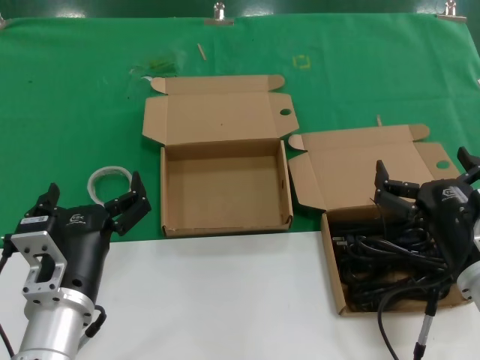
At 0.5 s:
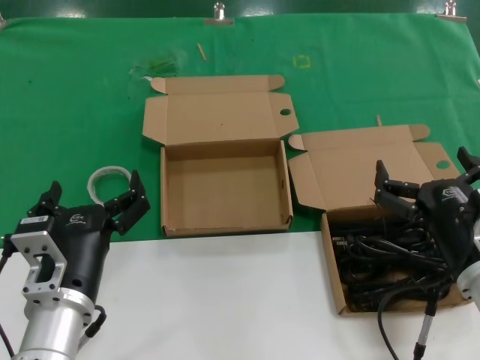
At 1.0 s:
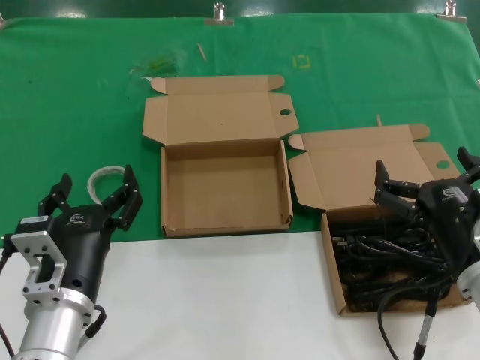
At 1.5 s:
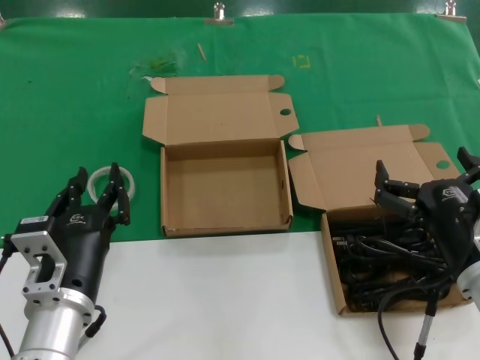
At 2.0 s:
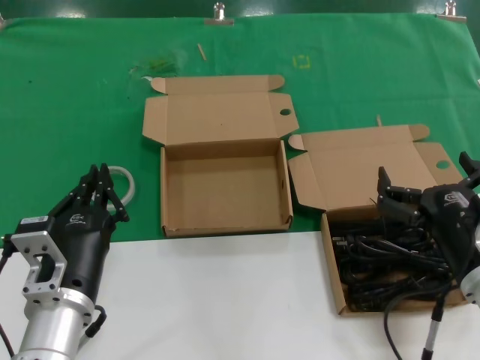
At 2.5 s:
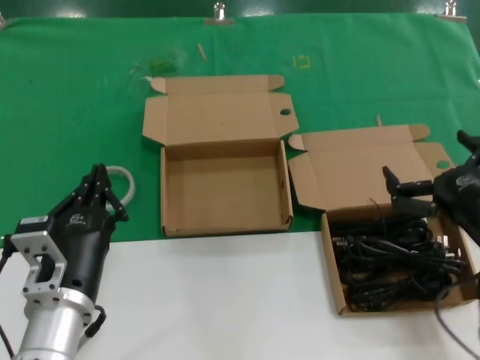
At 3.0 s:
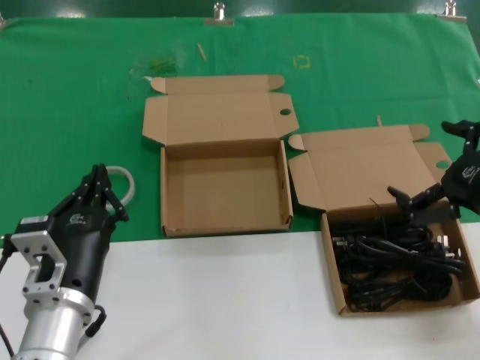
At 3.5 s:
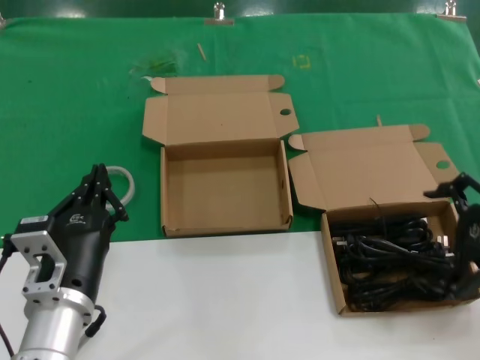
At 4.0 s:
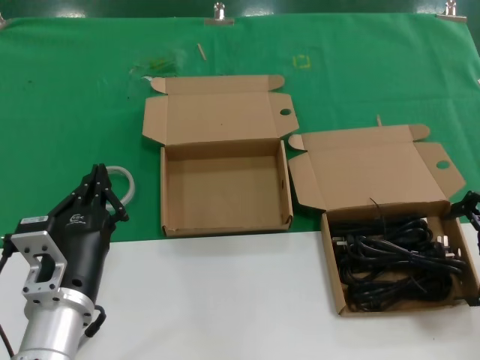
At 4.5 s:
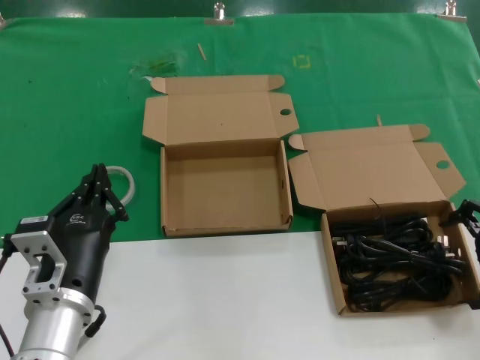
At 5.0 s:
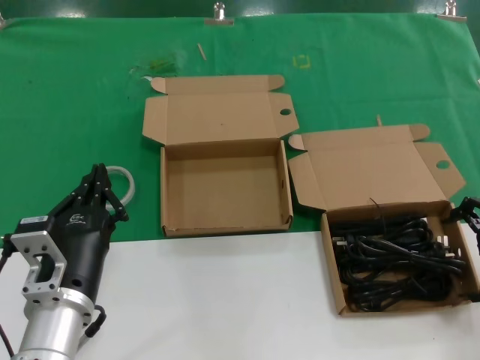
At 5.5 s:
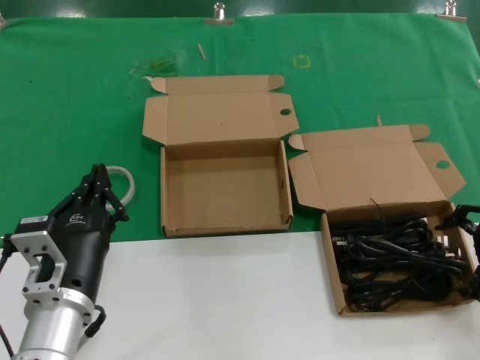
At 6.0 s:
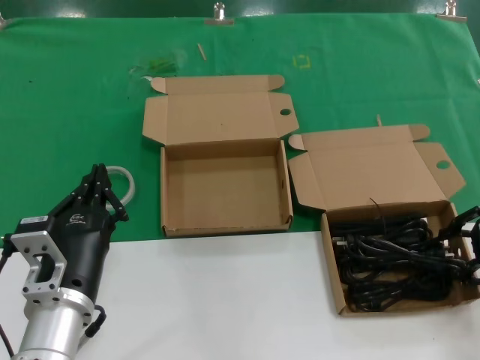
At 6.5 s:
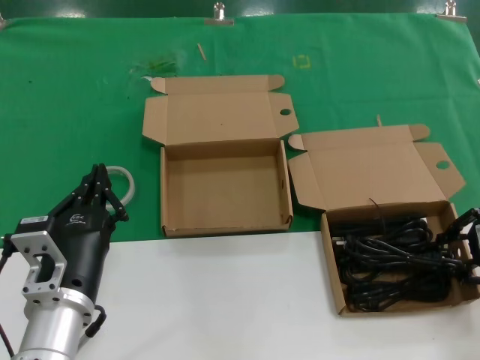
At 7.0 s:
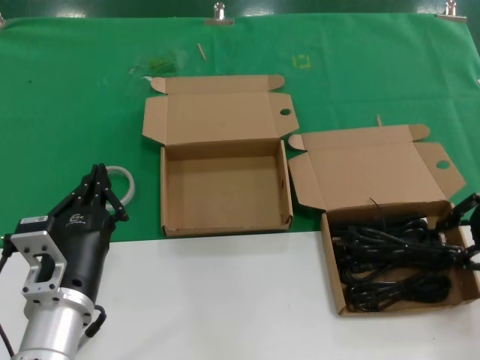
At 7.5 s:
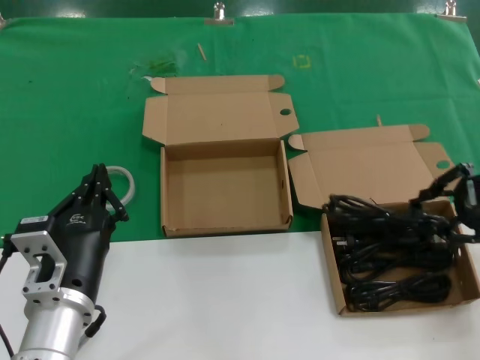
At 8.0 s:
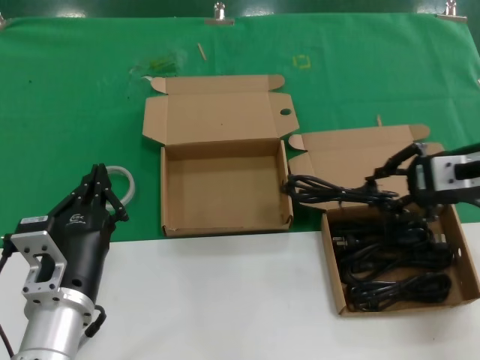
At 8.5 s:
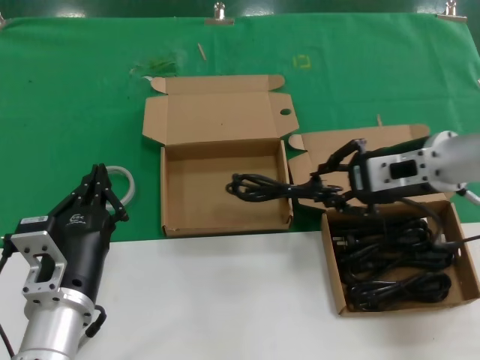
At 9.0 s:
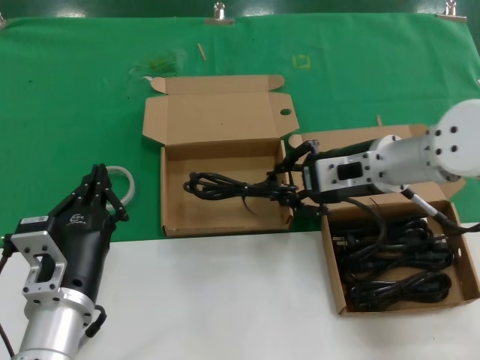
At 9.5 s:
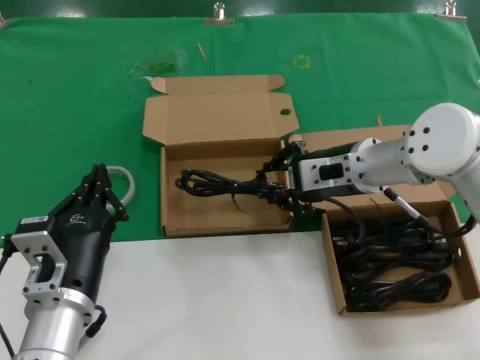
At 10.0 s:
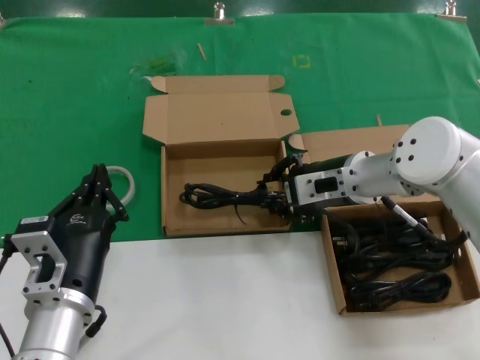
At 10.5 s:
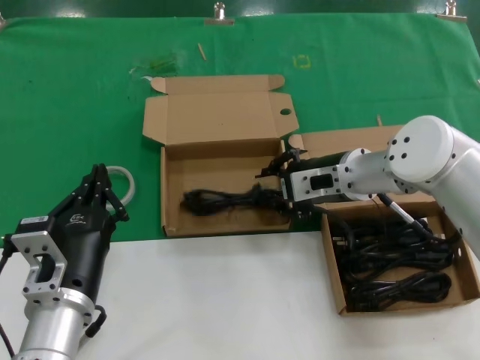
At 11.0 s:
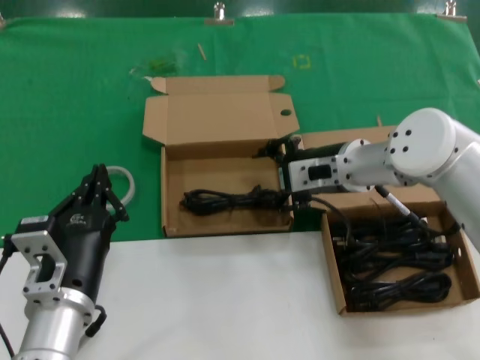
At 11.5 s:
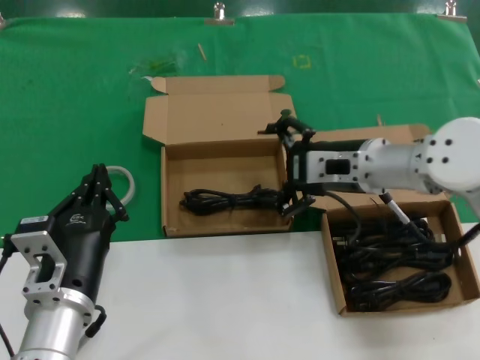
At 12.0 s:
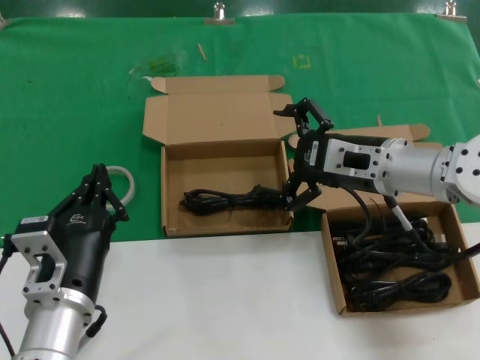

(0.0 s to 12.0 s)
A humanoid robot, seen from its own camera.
Task of the whole recording: take the parts from the box containing them and put them into an empty box.
Step, 0.0 s - 6.0 s: Grasp the data cable.
Step, 6.5 s - 10.5 s: Place the data cable in the another box.
0.0 s - 2.0 s: Both hands stay about where they are.
2.0 s - 4.0 s: The right hand moves to the right, upward and forward, roughly 20 cm.
4.0 s - 6.0 s: The right hand changes place by about 5 cm.
6.0 s - 8.0 s: The right hand travels to the left and upward by roughly 10 cm.
8.0 s - 10.0 s: The right hand moves to the left, downward and forward, some 20 cm.
10.0 s - 12.0 s: The right hand ends up about 5 cm from where it was.

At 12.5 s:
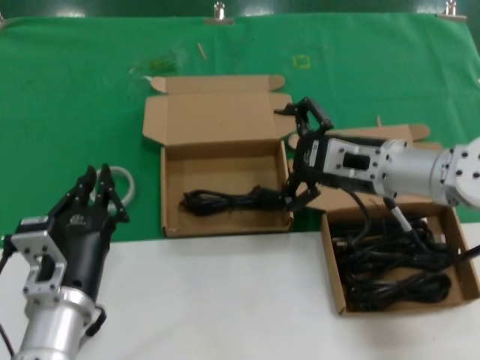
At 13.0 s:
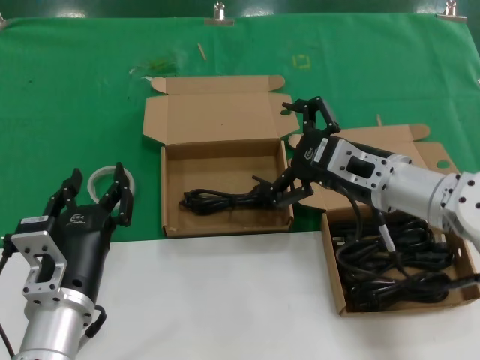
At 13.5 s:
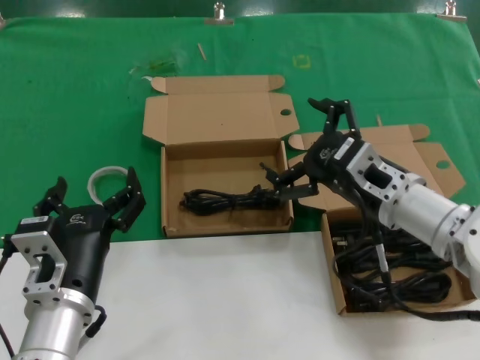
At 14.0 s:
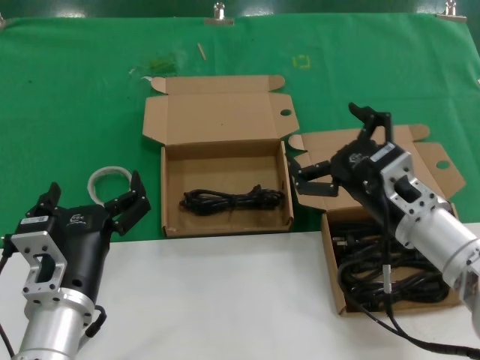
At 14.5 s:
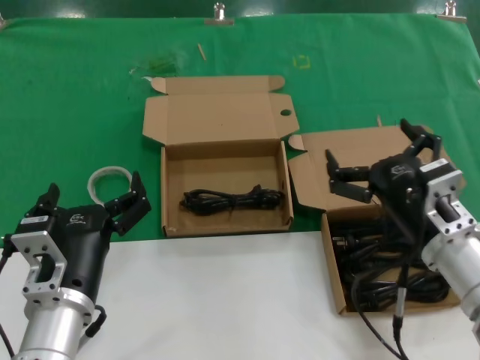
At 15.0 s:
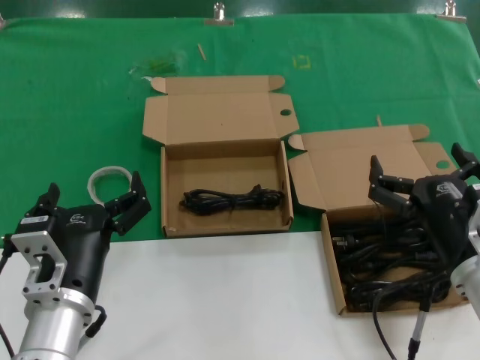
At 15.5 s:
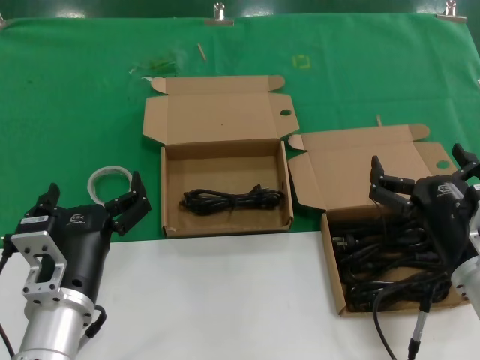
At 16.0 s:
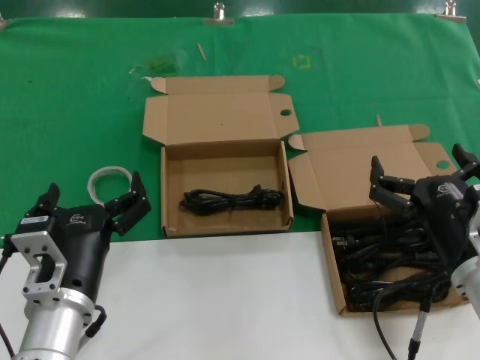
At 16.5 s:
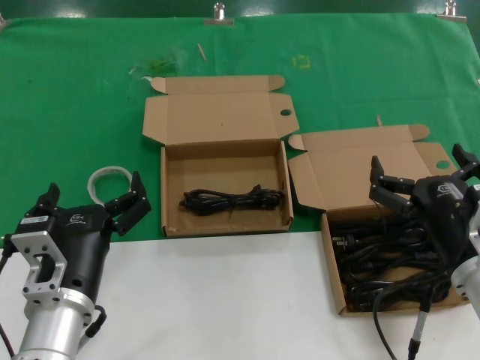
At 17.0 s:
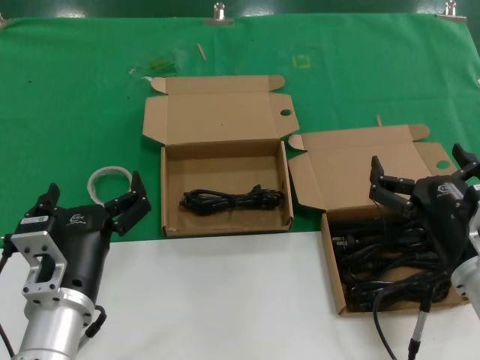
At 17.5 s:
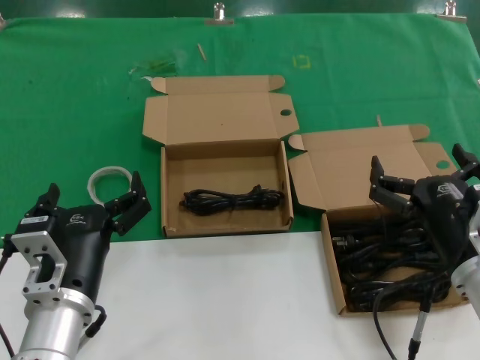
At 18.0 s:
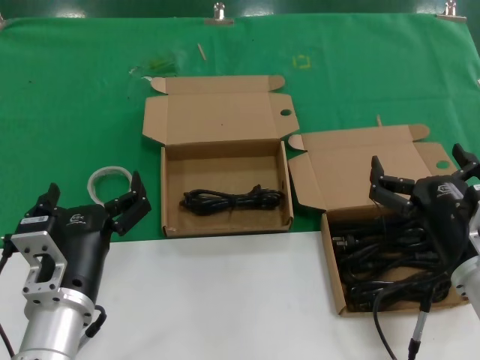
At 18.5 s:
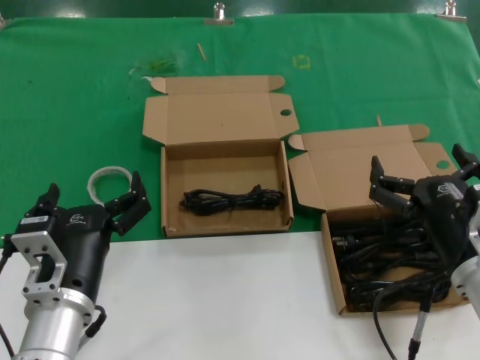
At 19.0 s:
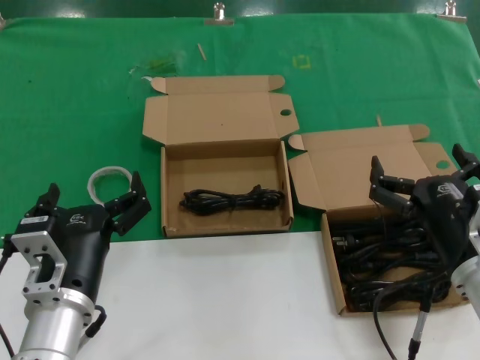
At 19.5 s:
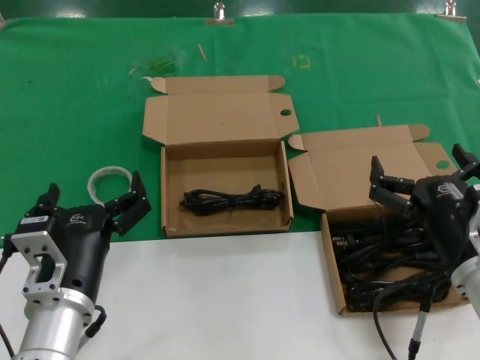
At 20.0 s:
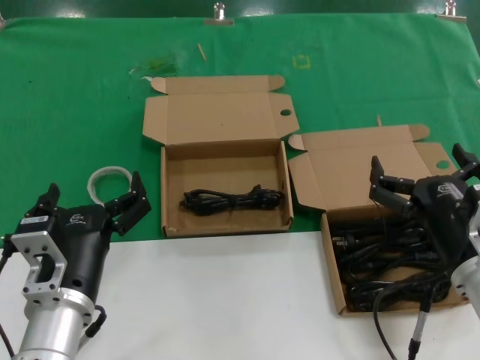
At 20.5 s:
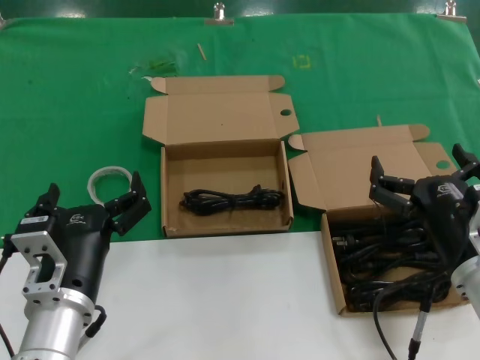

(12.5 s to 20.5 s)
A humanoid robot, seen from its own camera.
Task of the whole recording: take the parts from the box containing them and put them into an empty box.
12.5 s - 14.5 s: The right hand goes roughly 15 cm backward and downward.
14.5 s - 16.5 s: The hands move only a little.
16.5 s - 20.5 s: Both hands stay about where they are.

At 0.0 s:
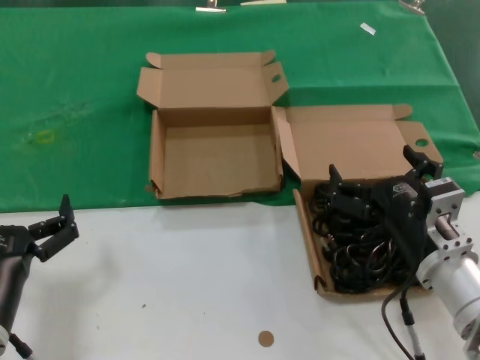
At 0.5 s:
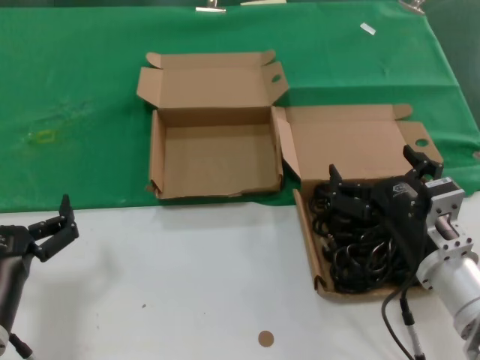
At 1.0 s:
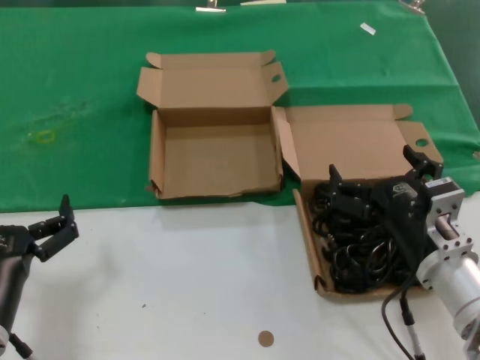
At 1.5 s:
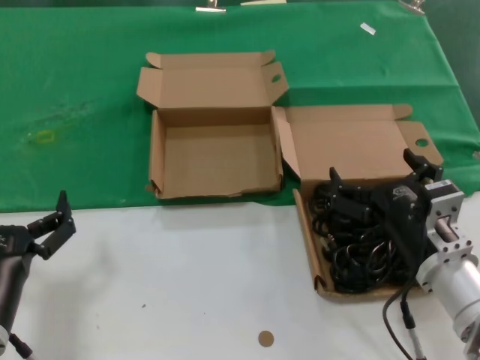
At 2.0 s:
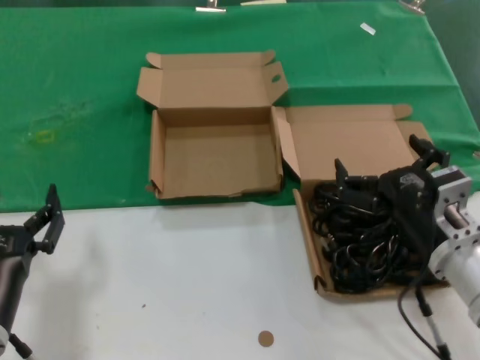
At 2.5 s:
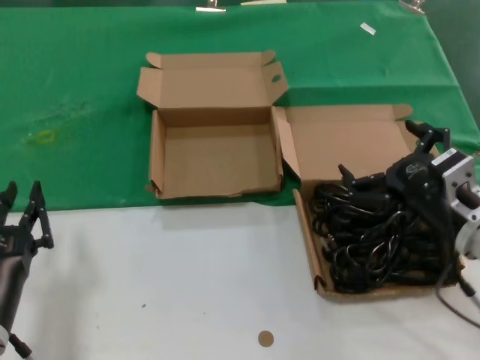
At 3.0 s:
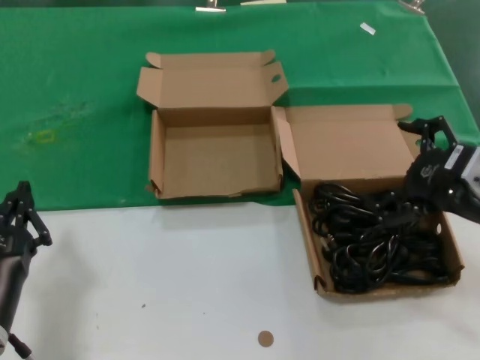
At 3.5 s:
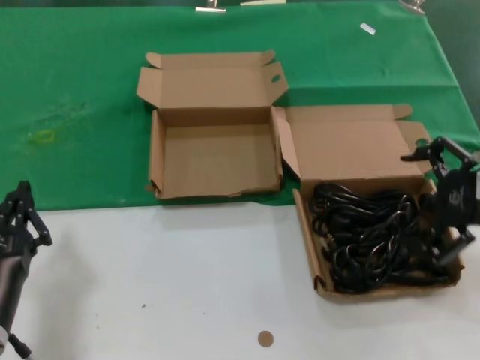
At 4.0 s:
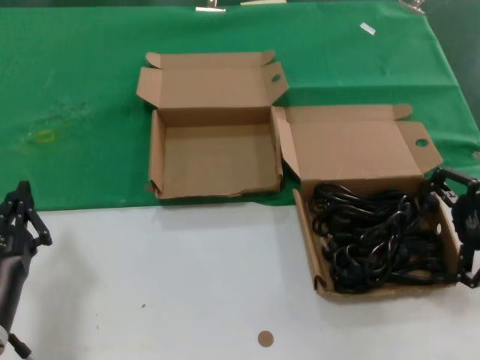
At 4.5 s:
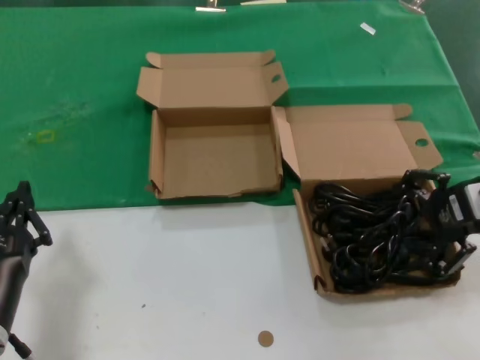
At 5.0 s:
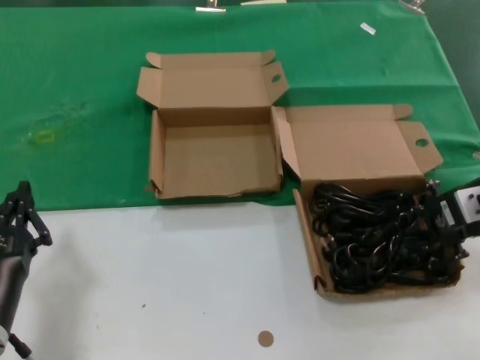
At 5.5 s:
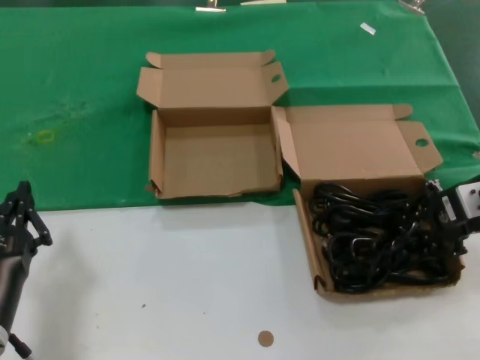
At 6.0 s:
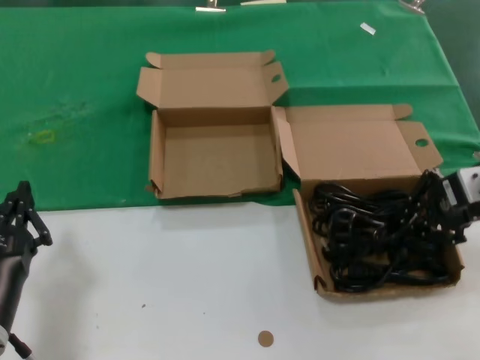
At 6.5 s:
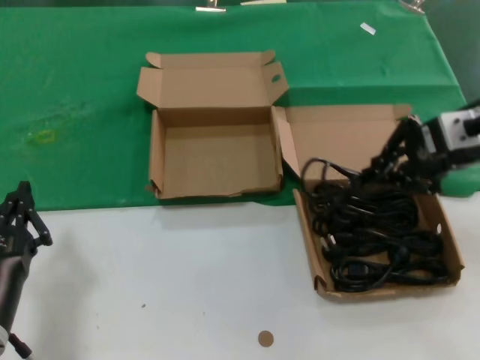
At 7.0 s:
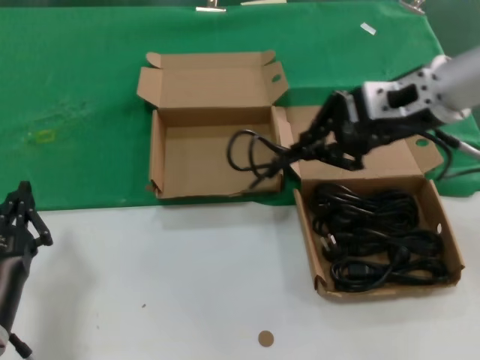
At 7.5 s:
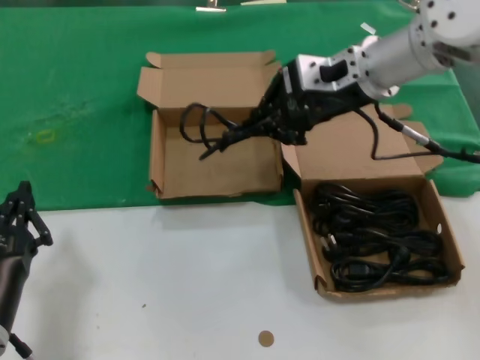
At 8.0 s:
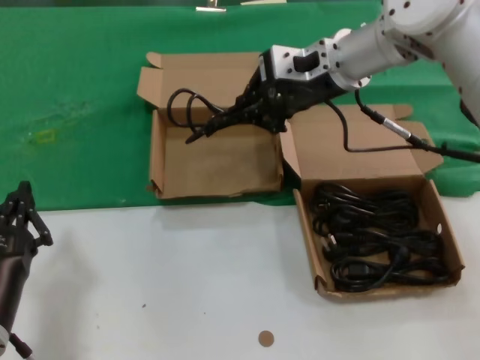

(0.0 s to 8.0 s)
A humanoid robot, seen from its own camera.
Task of the whole recording: take the parts from the box containing them and put them into an empty box.
Step, 0.0 s - 5.5 s: Grasp the data cable.
0.0 s - 2.0 s: The hands stay close to where they were, moving slightly.
2.0 s - 4.0 s: The right hand is displaced to the right and upward by some 20 cm.
4.0 s - 6.0 s: The right hand moves approximately 5 cm.
6.0 s - 8.0 s: The right hand goes about 25 cm to the left and forward.
